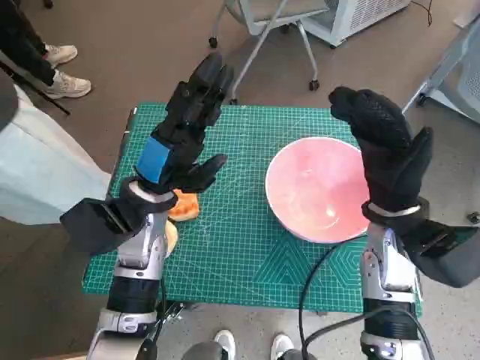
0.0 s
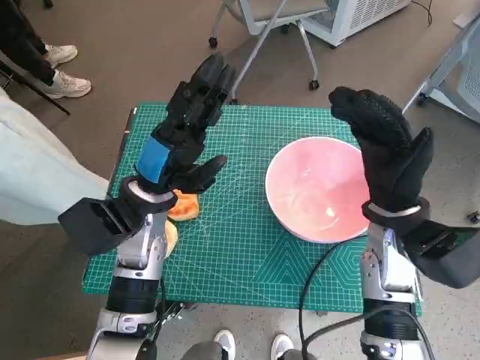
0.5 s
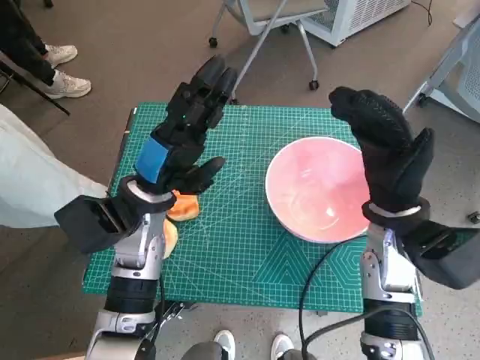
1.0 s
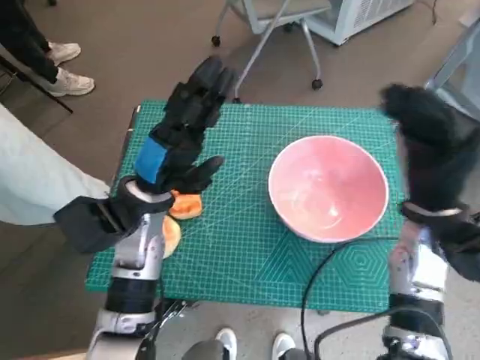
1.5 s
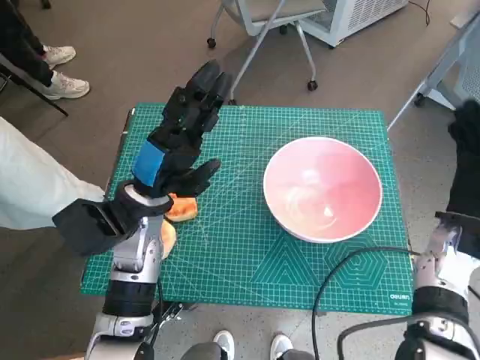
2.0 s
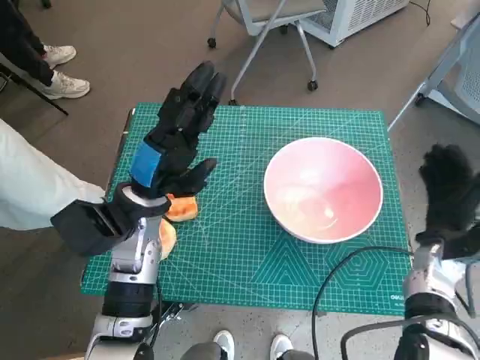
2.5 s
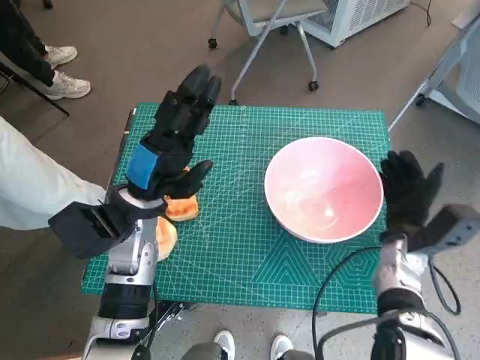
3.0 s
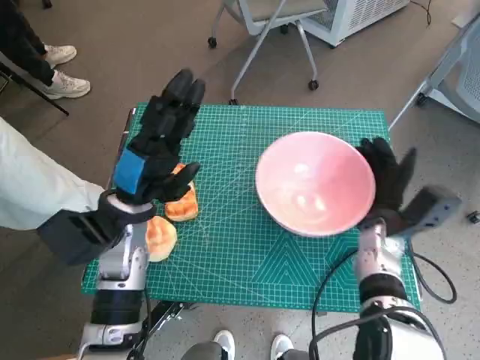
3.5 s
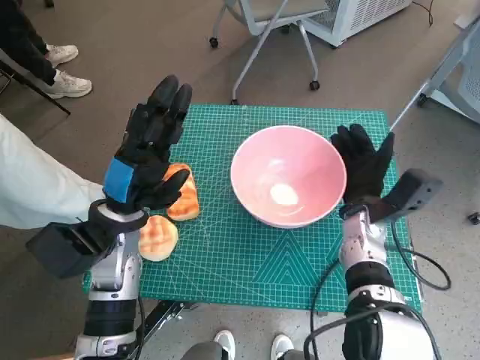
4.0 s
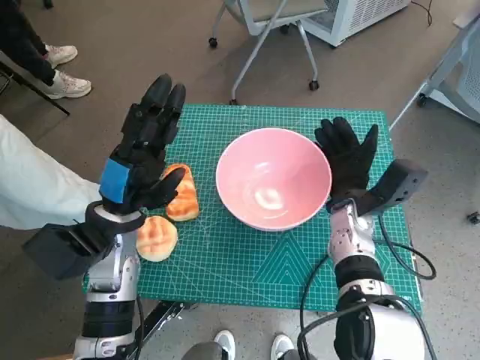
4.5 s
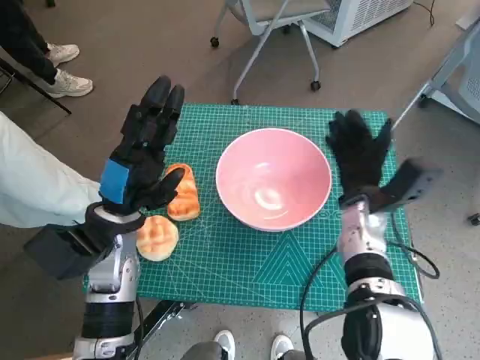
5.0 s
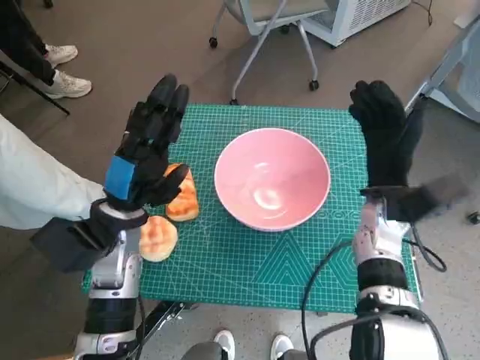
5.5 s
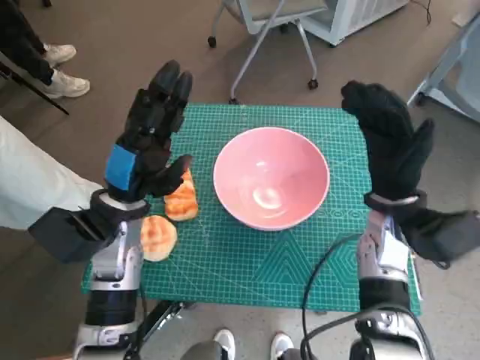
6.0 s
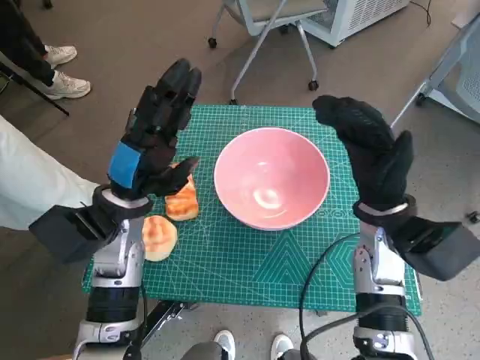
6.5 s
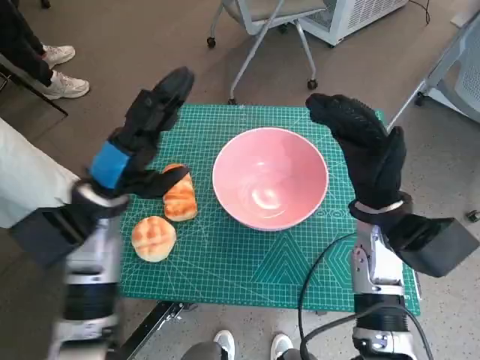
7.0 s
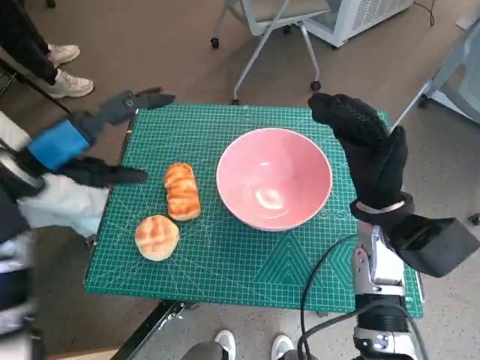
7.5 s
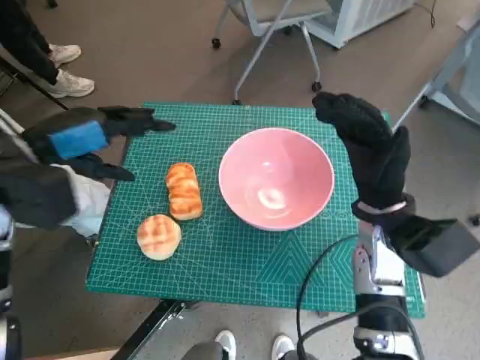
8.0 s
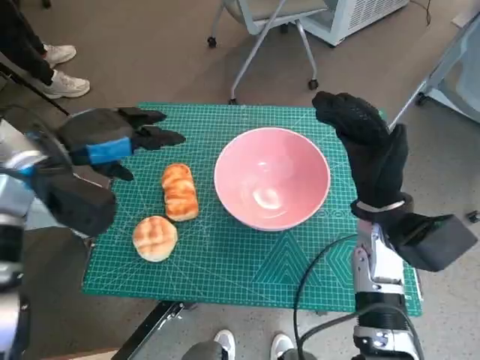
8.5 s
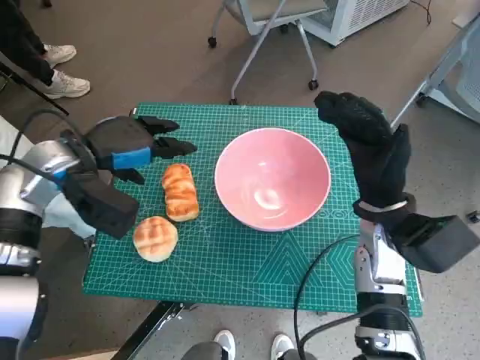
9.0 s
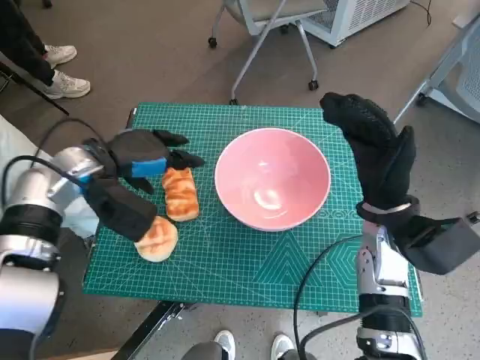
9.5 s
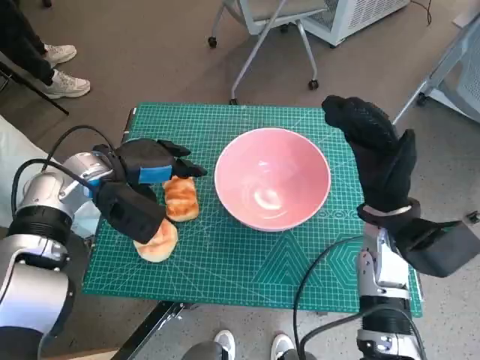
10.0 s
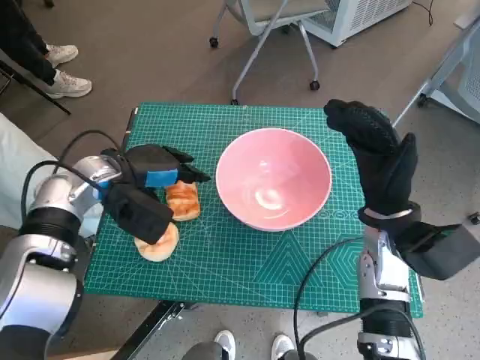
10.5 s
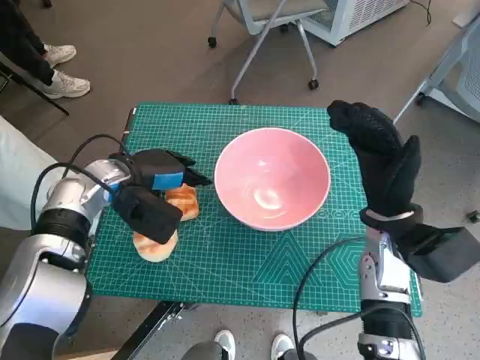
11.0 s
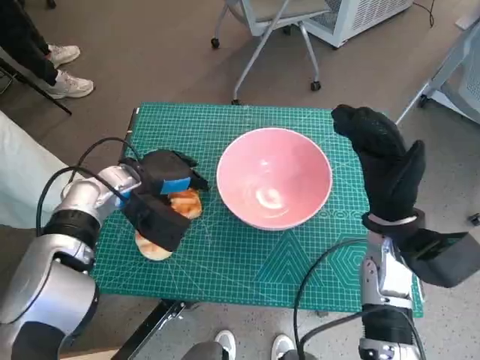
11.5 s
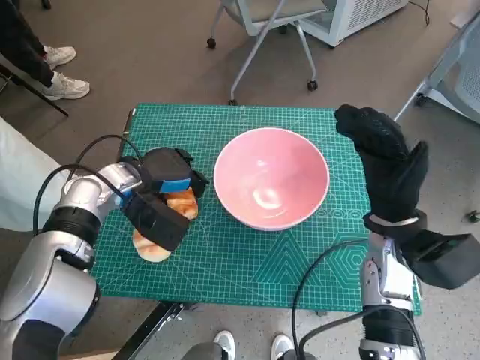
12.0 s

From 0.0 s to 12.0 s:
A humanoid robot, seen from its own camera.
Task of the whole recording: Push the bowl into the center of the table and put the bread into the bowl.
Step, from 0.0 s to 5.0 s: Move the pink bowl to the center of table with right hand.
Step, from 5.5 s to 11.5 s: Grasp the long bread with left hand.
From 2.0 s to 4.0 s: The right hand moves to the left, roughly 10 cm.
From 4.0 s to 6.0 s: The right hand heads upward, covering about 5 cm.
From 6.0 s to 8.0 s: The left hand travels upward and to the left by approximately 15 cm.
From 8.0 s to 10.0 s: The left hand goes some 10 cm downward and forward.
From 10.0 s to 12.0 s: The hands make only small movements.

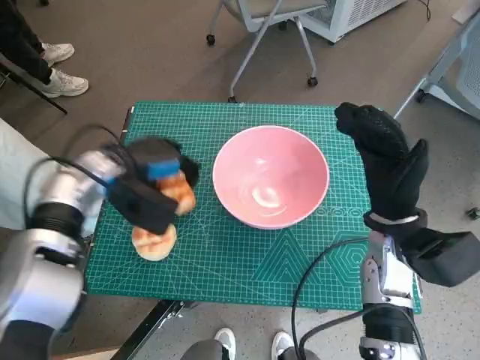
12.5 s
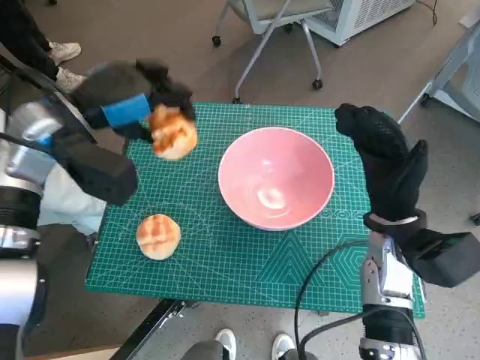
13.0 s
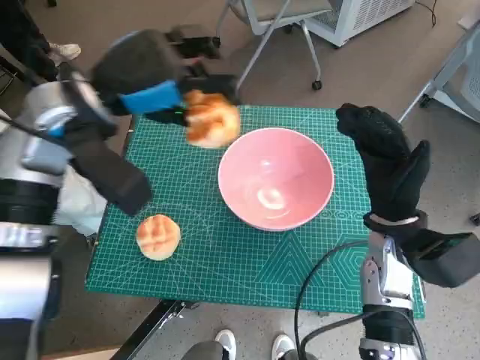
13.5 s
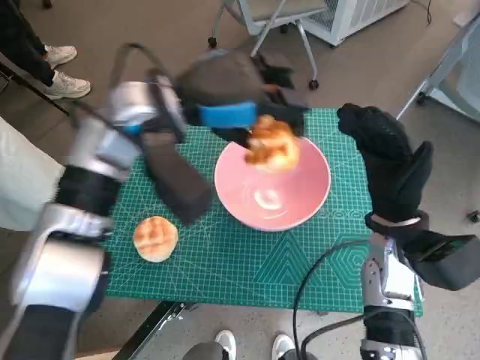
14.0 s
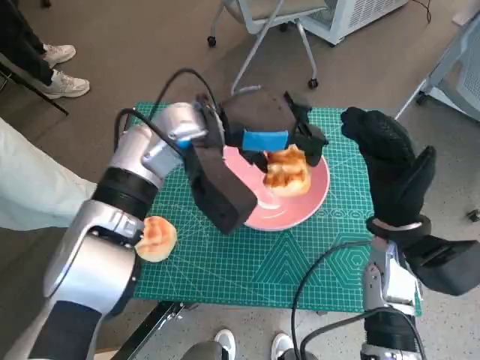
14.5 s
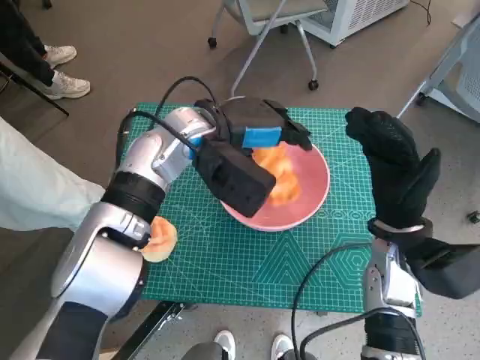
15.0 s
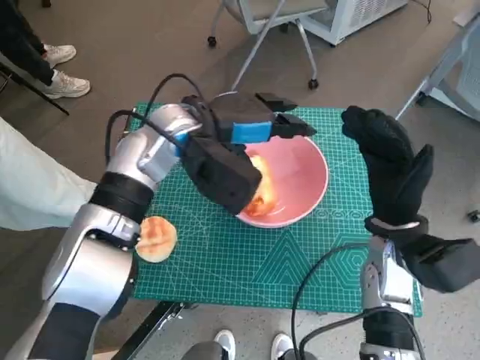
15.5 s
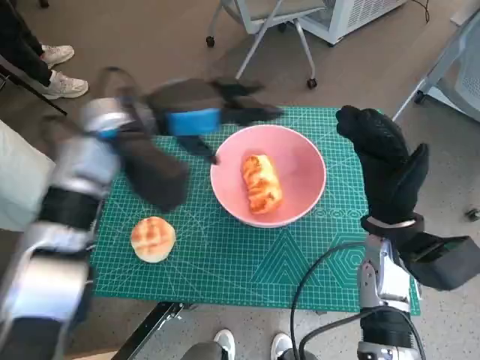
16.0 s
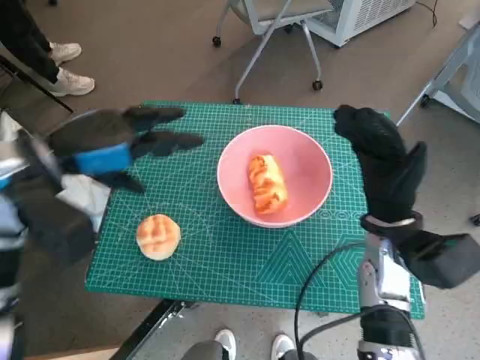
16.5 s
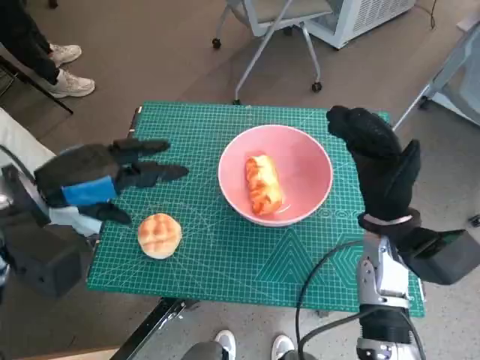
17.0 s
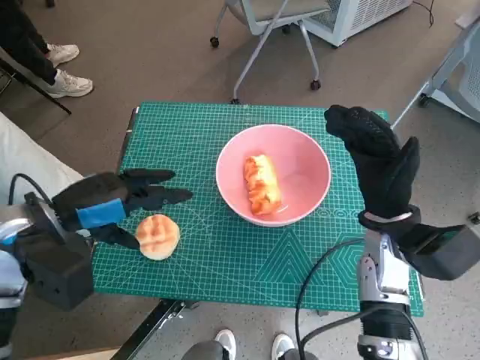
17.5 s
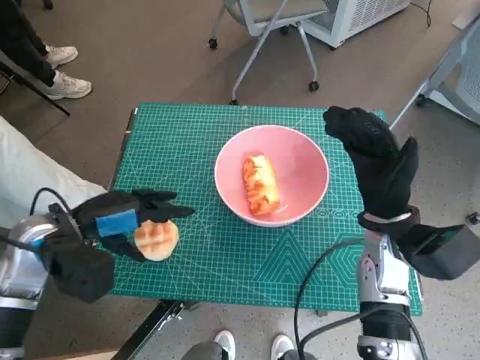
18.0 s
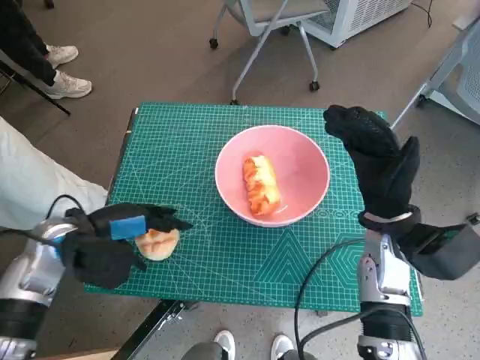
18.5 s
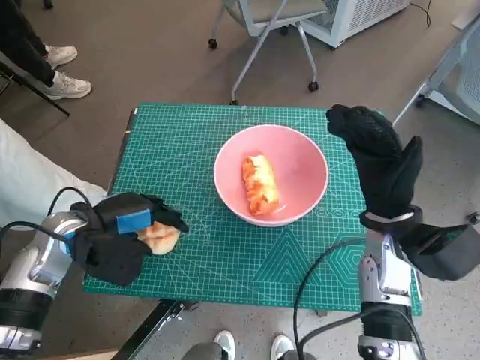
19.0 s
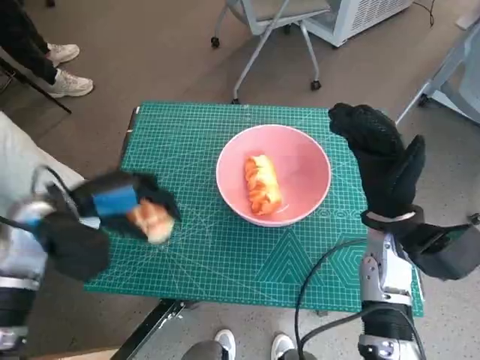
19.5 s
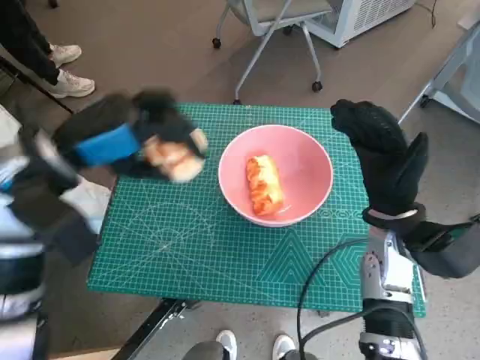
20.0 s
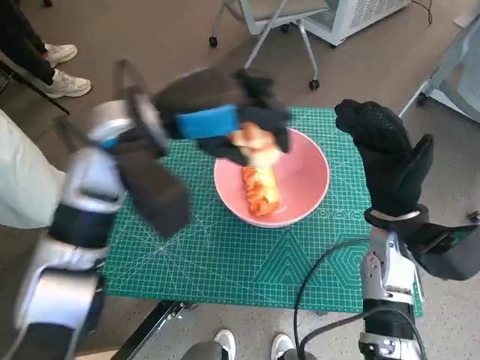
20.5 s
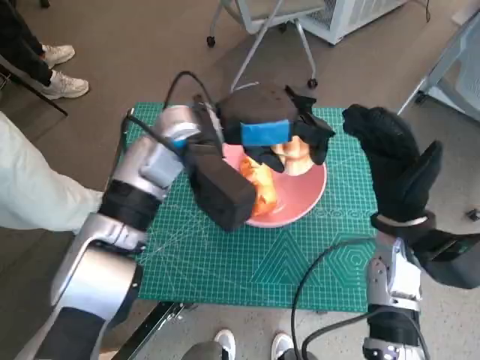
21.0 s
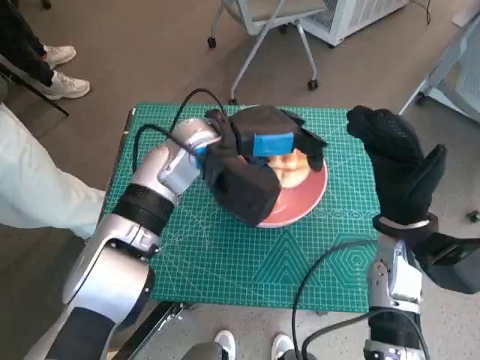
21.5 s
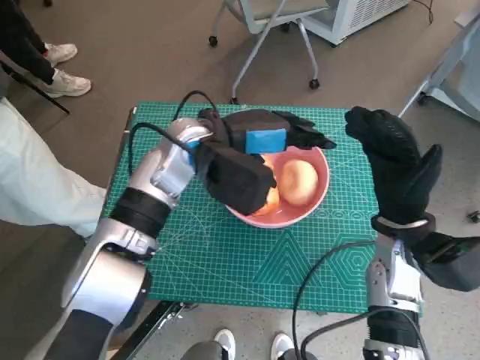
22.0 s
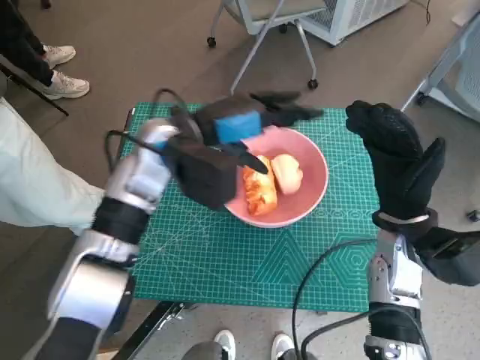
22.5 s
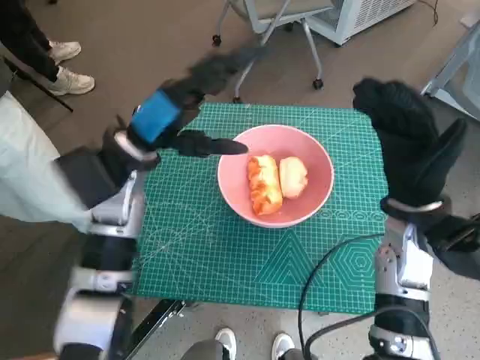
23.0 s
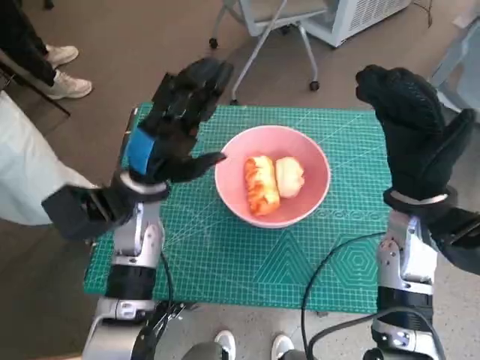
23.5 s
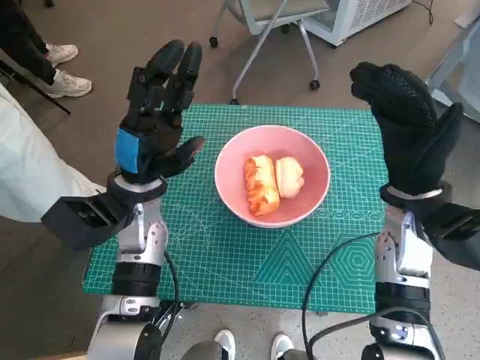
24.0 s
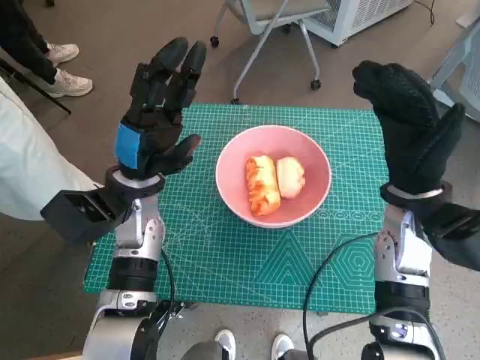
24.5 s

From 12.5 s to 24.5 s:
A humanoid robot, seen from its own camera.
Task of the whole recording: Push the bowl into the center of the table and put the bread into the bowl.
Step, from 12.5 s to 15.5 s: Place the long bread in pink bowl with left hand.
Step, from 16.0 s to 19.0 s: Grasp the round bread with left hand.
Step, from 19.5 s to 22.0 s: Place the round bread in pink bowl with left hand.
From 12.5 s to 14.5 s: The left hand shifts roughly 15 cm to the right and upward.
From 14.5 s to 16.5 s: The left hand goes roughly 15 cm to the left.
From 16.5 s to 18.5 s: The left hand shifts some 15 cm downward.
From 18.5 s to 20.5 s: The left hand goes approximately 20 cm upward and to the right.
From 20.5 s to 22.5 s: The left hand shifts approximately 5 cm downward.
From 22.5 s to 24.5 s: The left hand goes roughly 10 cm downward and to the left.

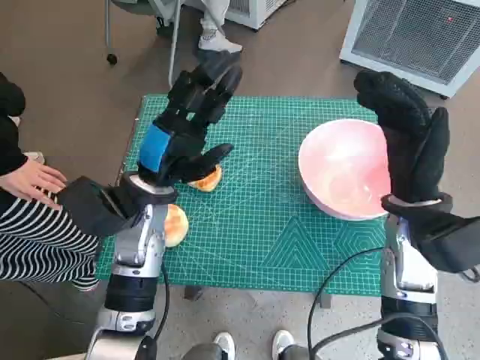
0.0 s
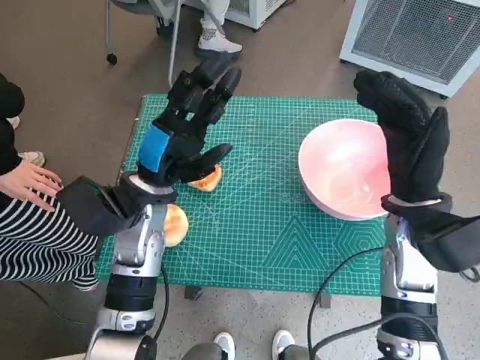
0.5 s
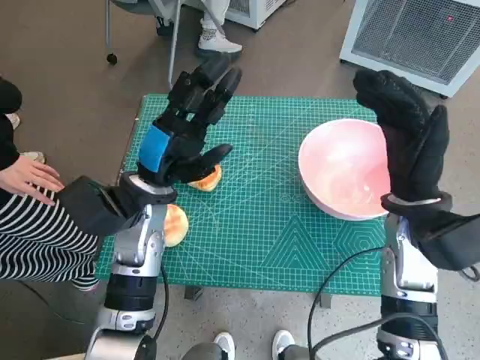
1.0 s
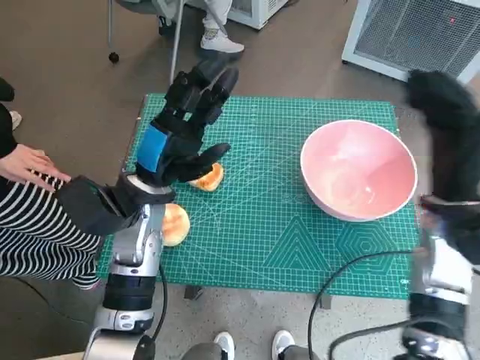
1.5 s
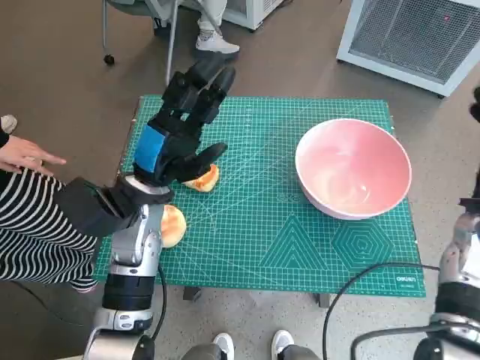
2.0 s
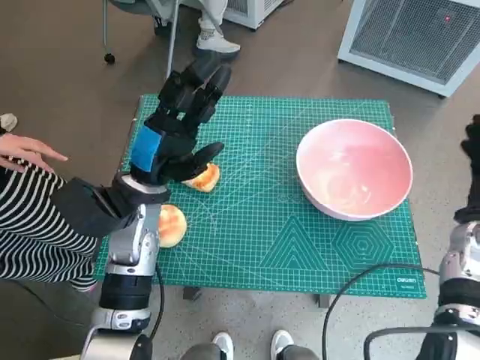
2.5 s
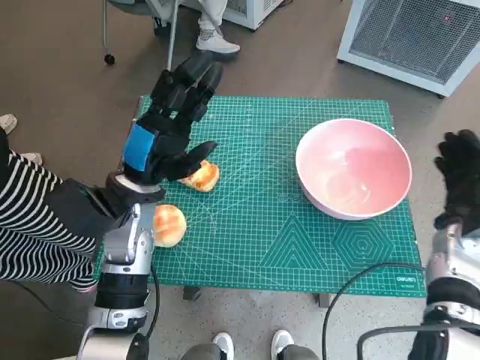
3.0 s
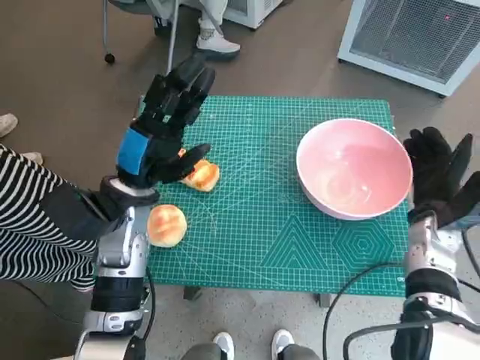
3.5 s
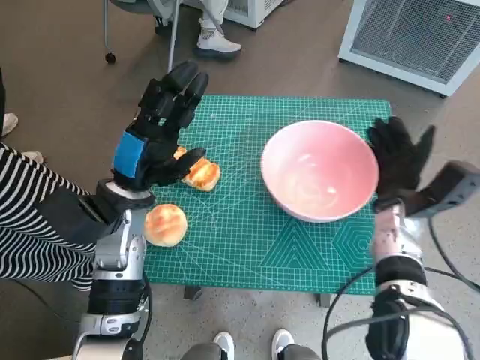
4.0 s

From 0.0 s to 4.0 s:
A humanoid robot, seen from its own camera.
Task of the whole recording: Push the bowl into the center of the table and put the bread into the bowl.
From 2.0 s to 4.0 s: The right hand heads to the left and downward, covering some 10 cm.
